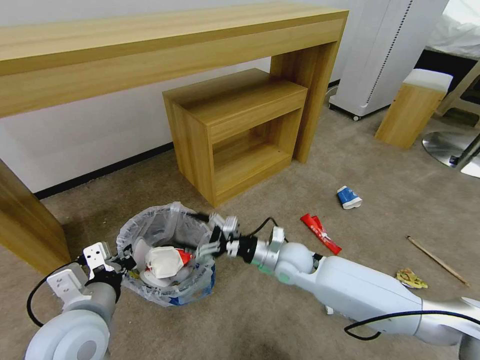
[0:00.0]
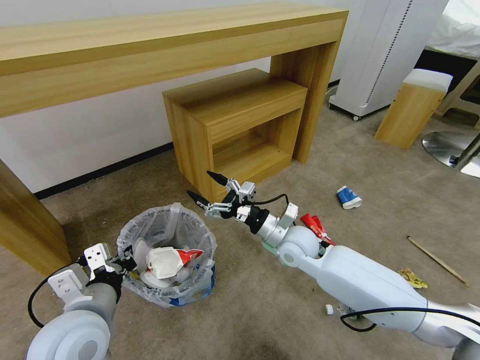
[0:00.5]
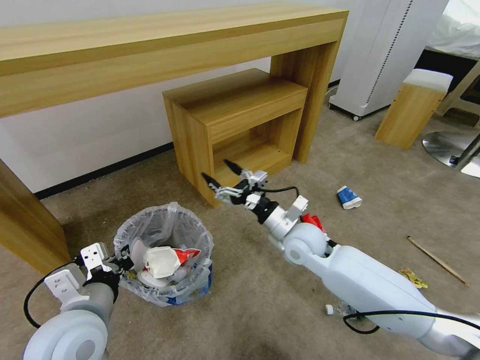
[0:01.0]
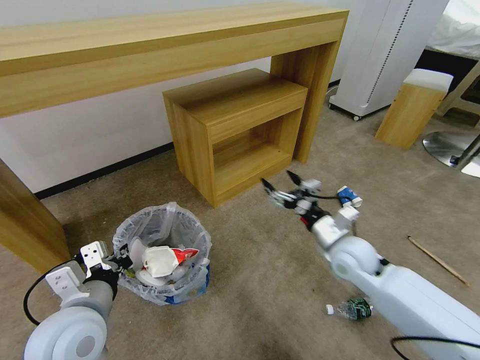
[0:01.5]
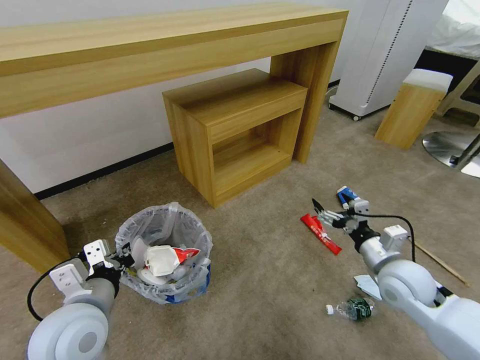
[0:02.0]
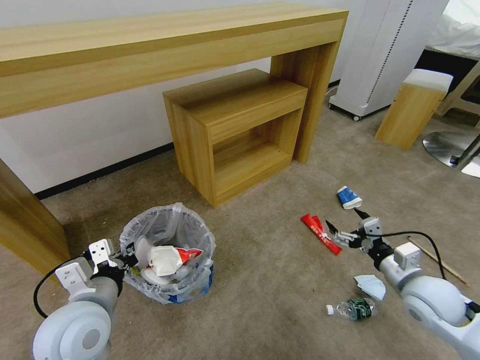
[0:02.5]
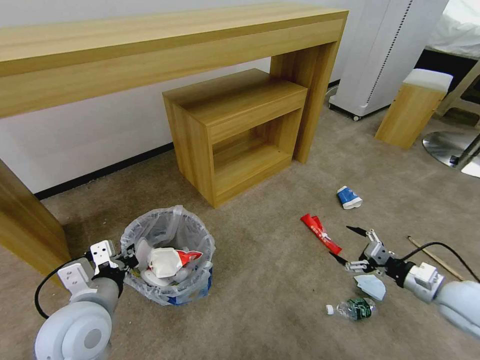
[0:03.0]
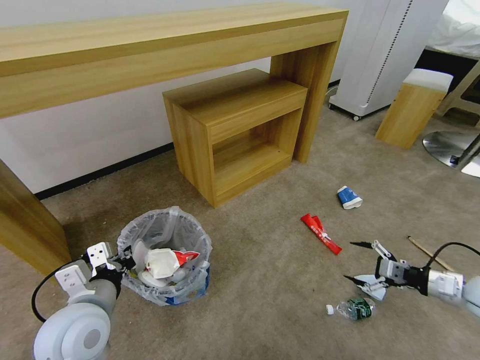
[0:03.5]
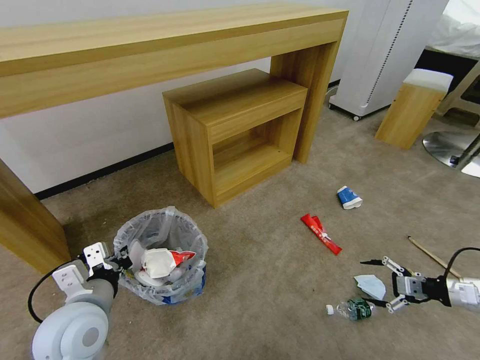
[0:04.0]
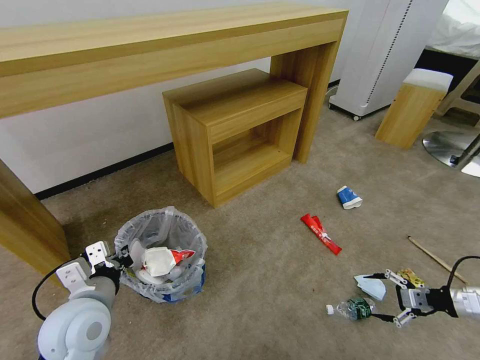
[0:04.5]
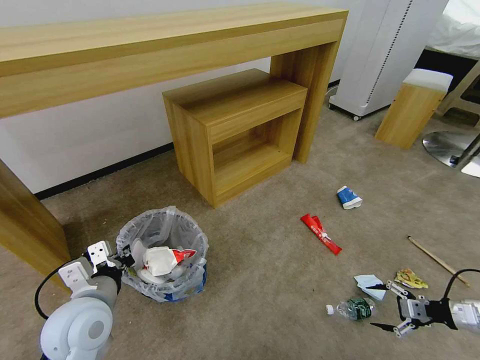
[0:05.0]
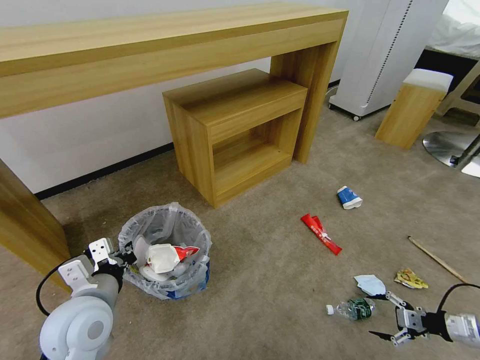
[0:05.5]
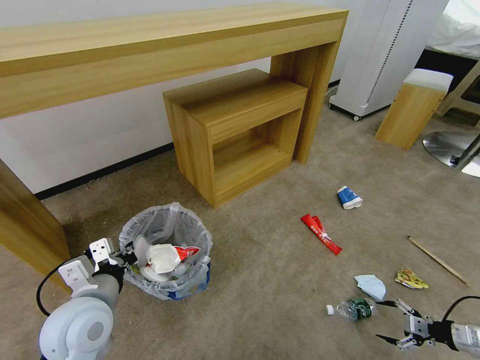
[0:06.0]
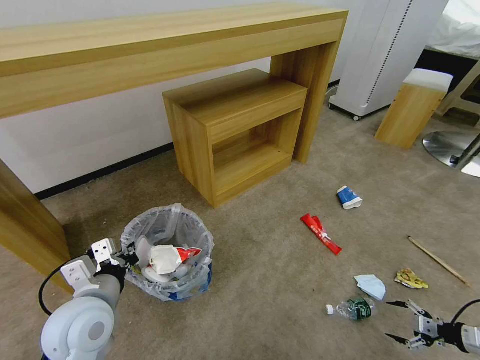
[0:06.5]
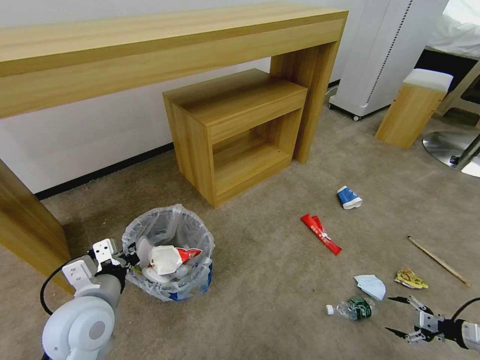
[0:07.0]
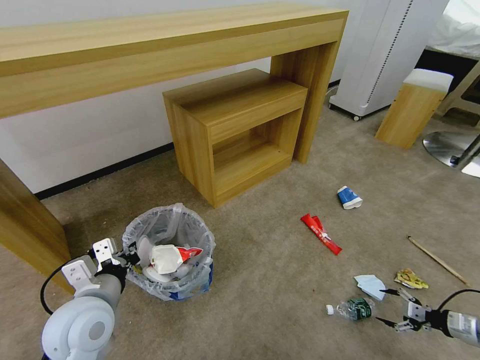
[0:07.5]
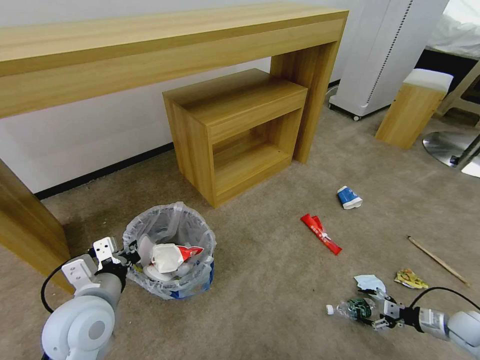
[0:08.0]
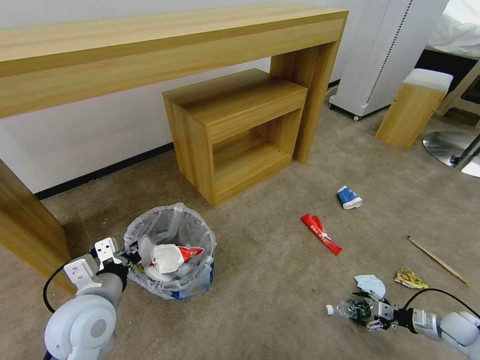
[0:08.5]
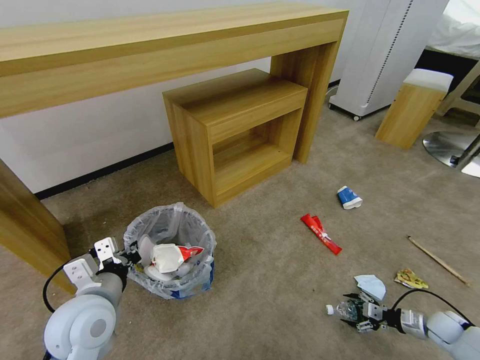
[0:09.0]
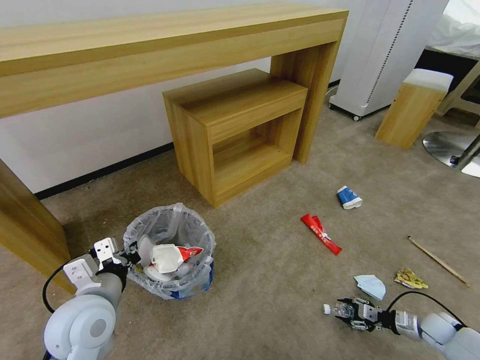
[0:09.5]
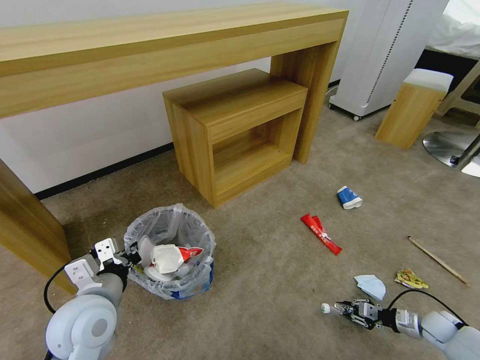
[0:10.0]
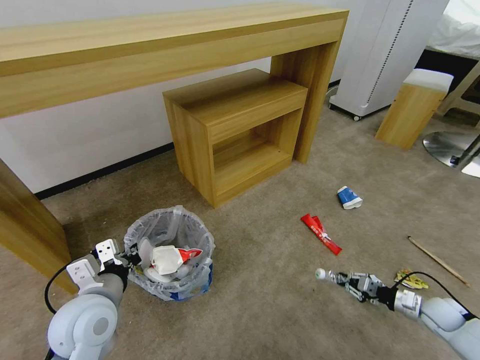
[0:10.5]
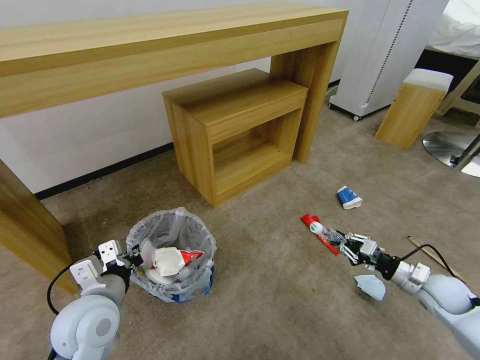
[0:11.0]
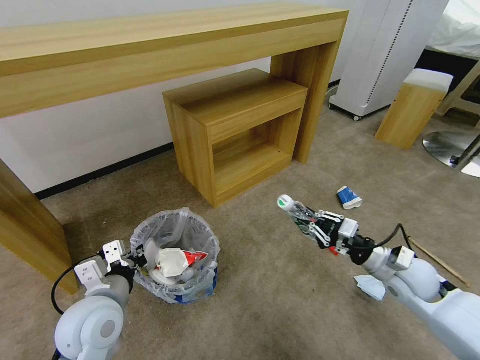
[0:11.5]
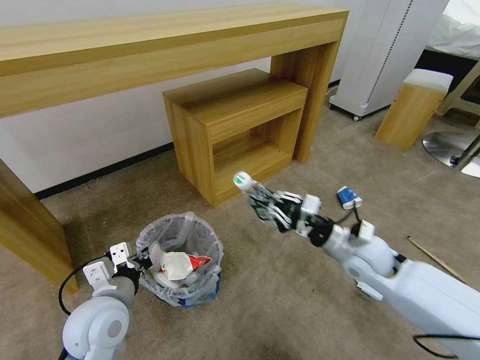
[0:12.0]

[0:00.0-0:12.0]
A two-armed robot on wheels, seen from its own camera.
Task of the whole recording: Pick up the trash bin and place the garbage on the floor into it.
0:00.0 to 0:02.0: The right gripper heads to the right, covering approximately 20 cm.
0:02.0 to 0:04.0: The right gripper is displaced to the right by about 25 cm.
0:04.0 to 0:06.0: The right gripper travels downward and backward by roughly 15 cm.
0:06.0 to 0:08.0: The right gripper goes some 5 cm downward.
0:08.0 to 0:10.0: The right gripper heads downward, covering about 5 cm, and closes.
0:10.0 to 0:12.0: The right gripper shifts approximately 35 cm to the left and upward.

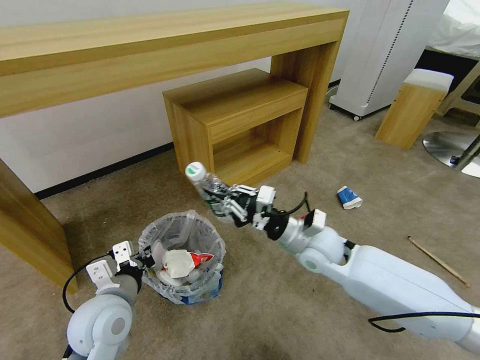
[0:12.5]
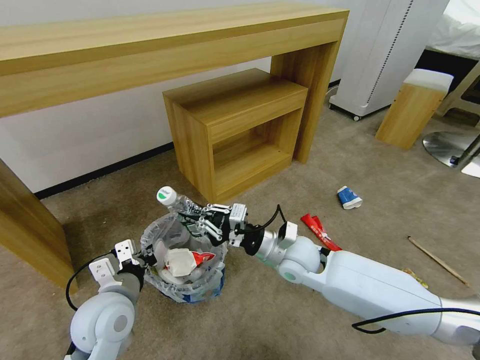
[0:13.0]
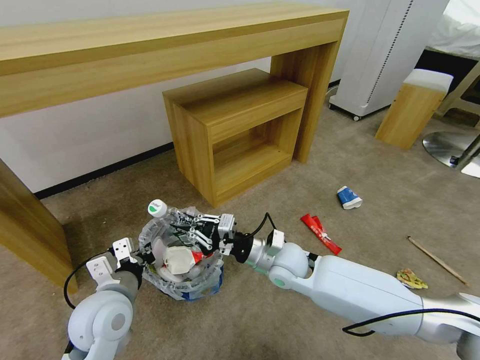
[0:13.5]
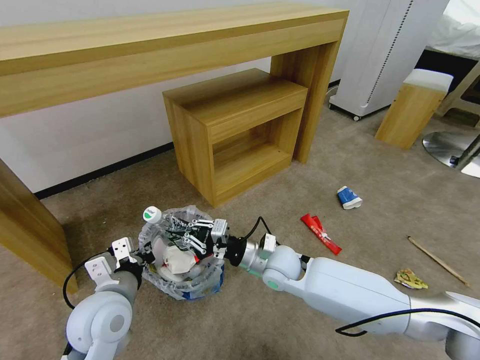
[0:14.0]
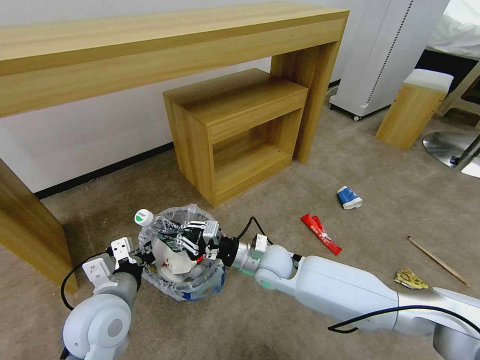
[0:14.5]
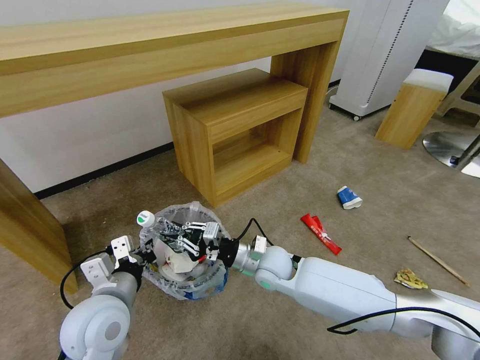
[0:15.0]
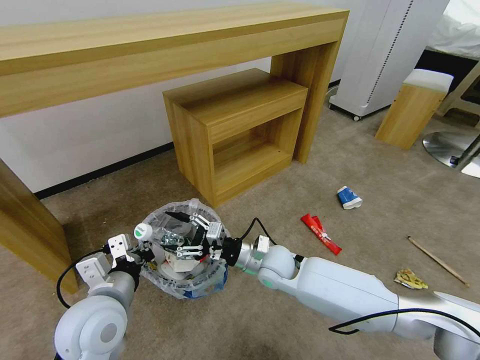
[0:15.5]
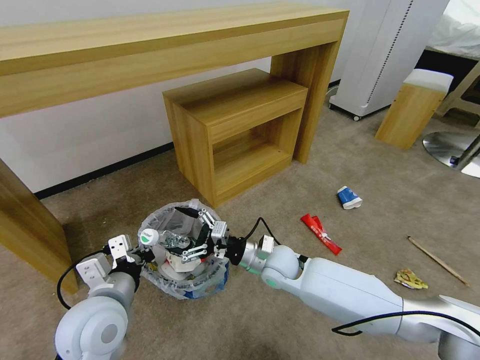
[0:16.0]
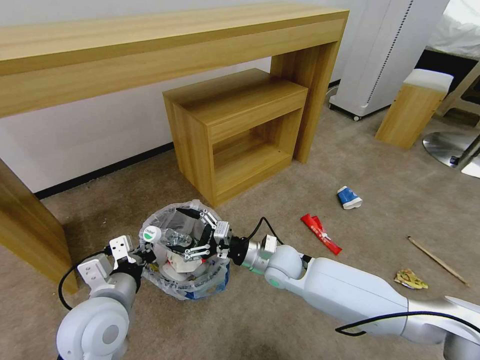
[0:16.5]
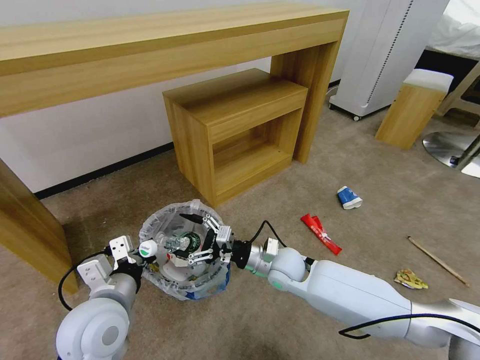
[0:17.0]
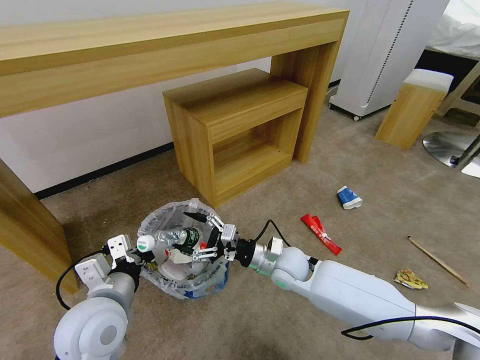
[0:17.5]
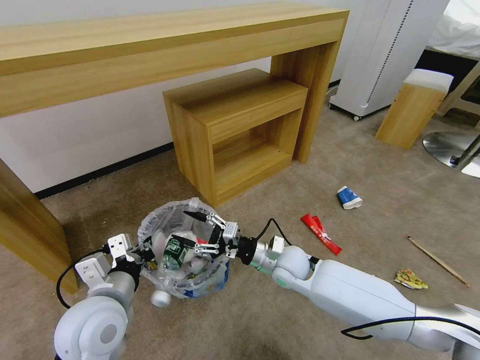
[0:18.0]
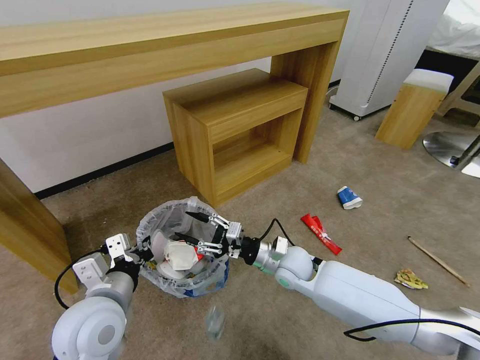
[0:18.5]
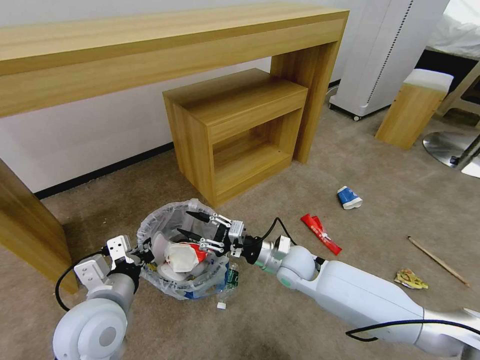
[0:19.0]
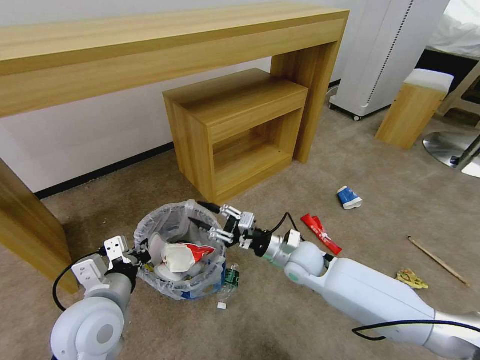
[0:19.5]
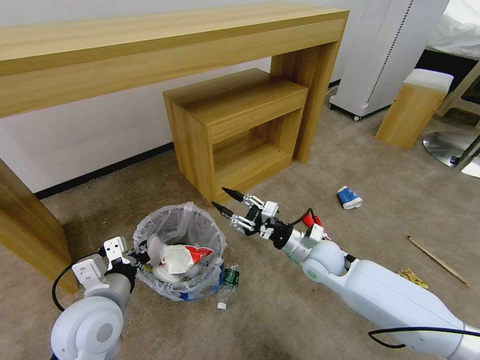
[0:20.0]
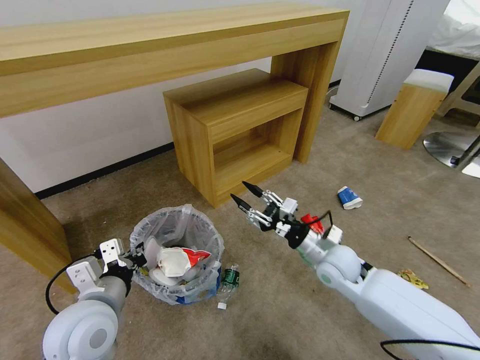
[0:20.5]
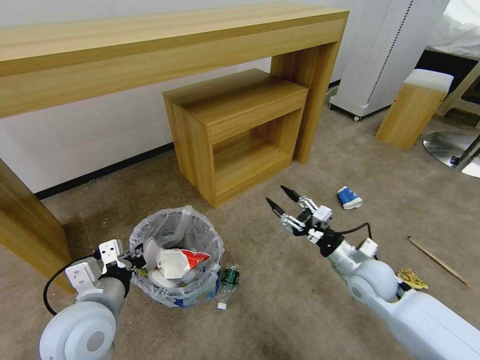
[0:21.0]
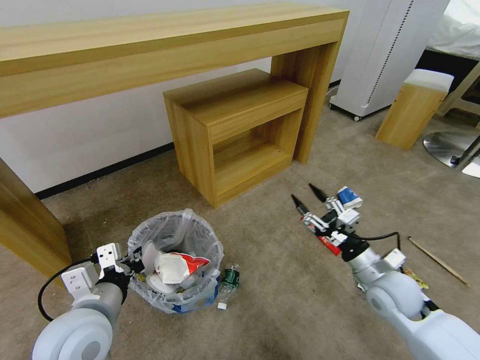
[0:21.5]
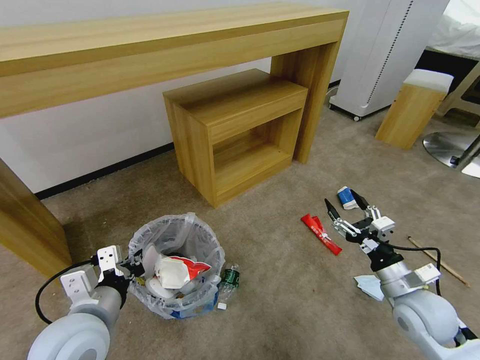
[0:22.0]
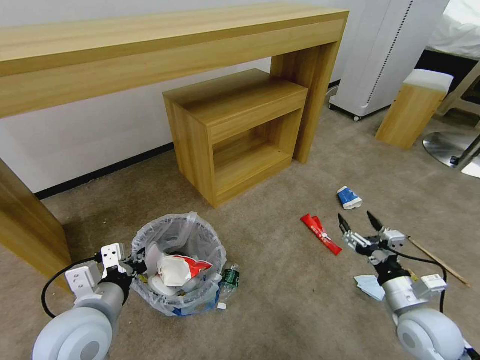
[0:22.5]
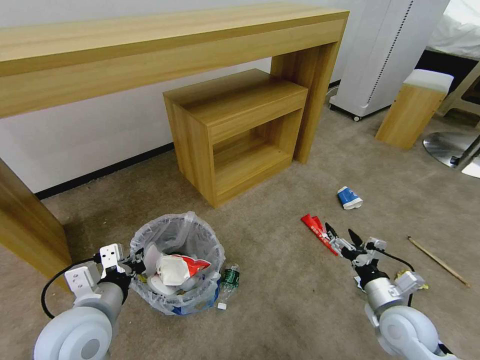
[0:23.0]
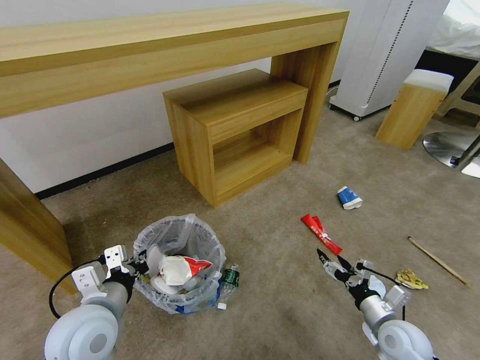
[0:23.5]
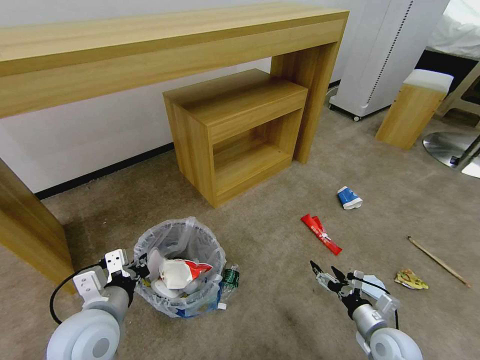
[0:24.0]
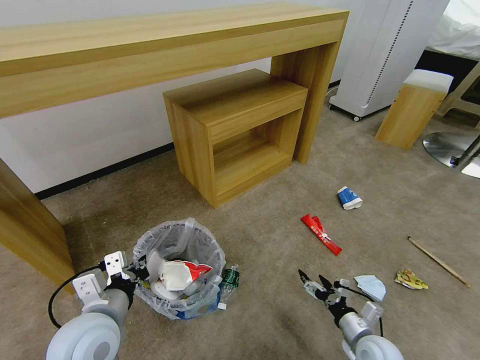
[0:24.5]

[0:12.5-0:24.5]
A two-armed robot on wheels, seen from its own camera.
Task of the whole recording: Pick up the trash bin and place the garbage on the floor into it.
0:12.5 to 0:14.5: The right gripper is displaced to the left and downward by about 10 cm.
0:14.5 to 0:16.5: The right gripper opens its fingers.
0:16.5 to 0:18.5: The grippers stay close to where they were, moving slightly.
0:18.5 to 0:20.5: The right gripper travels to the right by roughly 10 cm.
0:20.5 to 0:22.5: The right gripper is displaced backward and to the right by roughly 20 cm, and opens up.
0:22.5 to 0:24.5: The right gripper goes about 15 cm downward.

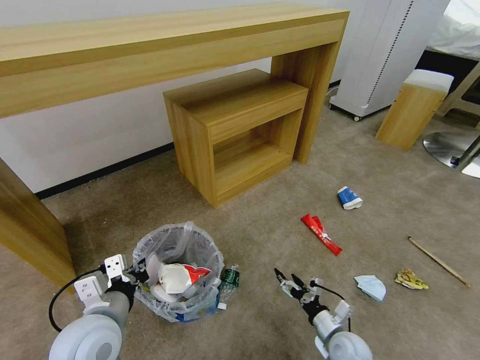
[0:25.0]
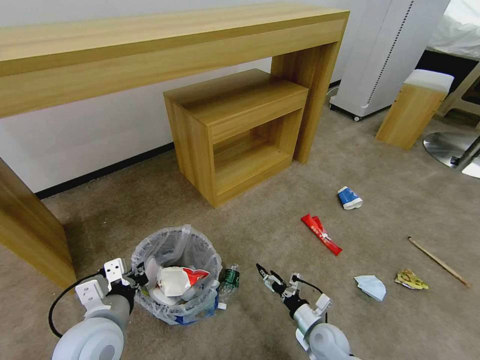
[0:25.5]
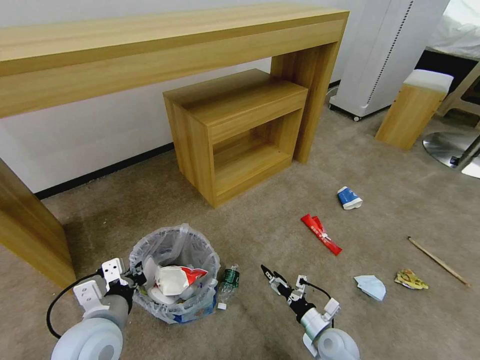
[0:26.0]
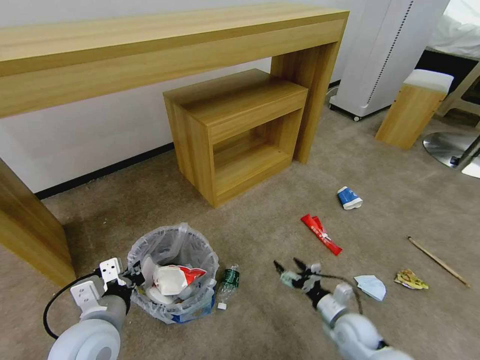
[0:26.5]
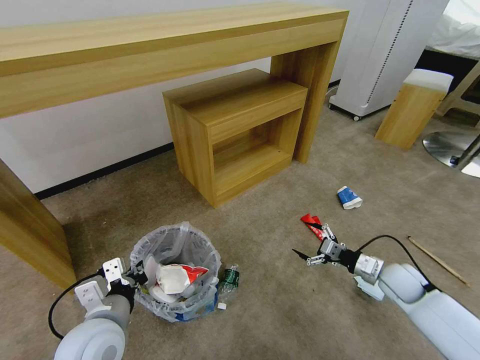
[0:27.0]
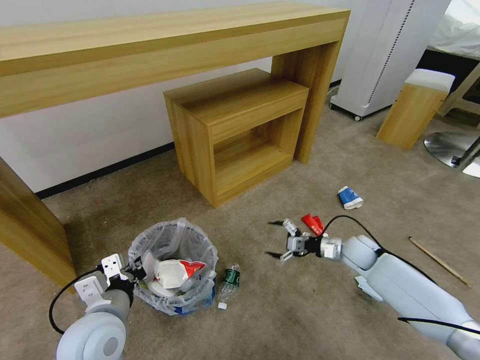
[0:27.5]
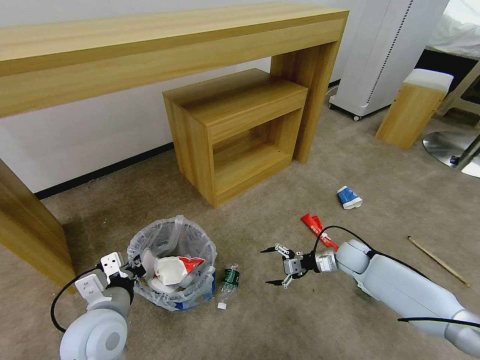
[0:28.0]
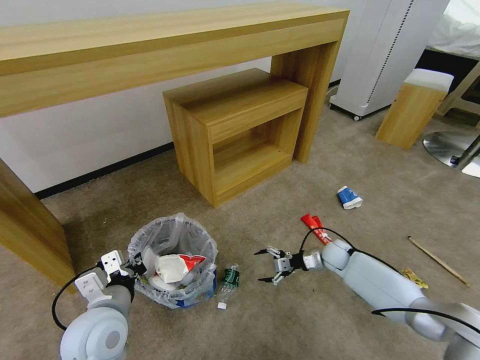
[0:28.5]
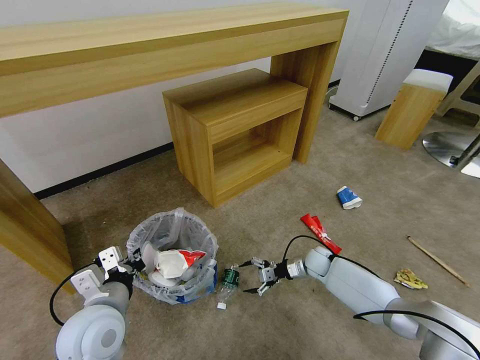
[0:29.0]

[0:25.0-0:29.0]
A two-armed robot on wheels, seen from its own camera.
Task of the whole recording: Pick up the trash bin and place the garbage on the floor into it.
0:25.0 to 0:27.0: The right gripper shifts roughly 20 cm to the right, forward and upward.
0:27.0 to 0:29.0: The right gripper is displaced to the left, forward and downward by roughly 20 cm.
